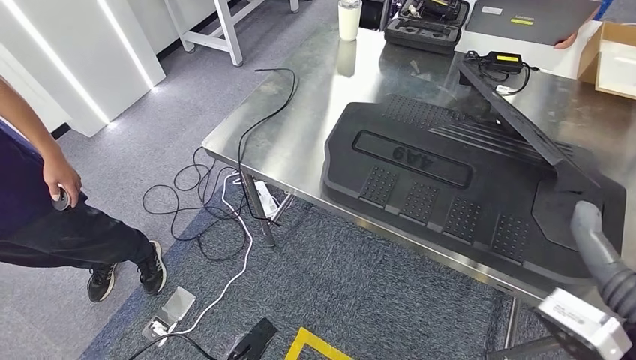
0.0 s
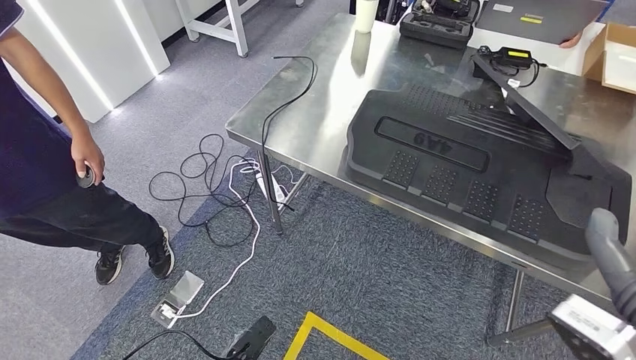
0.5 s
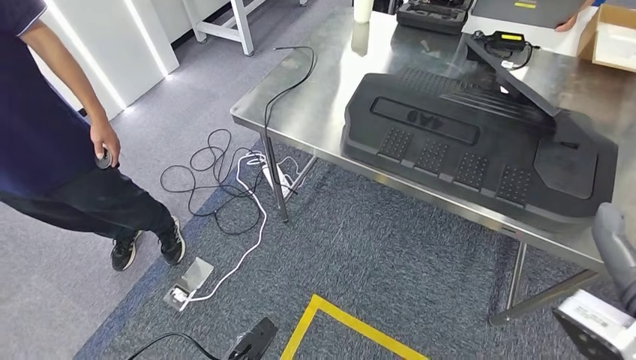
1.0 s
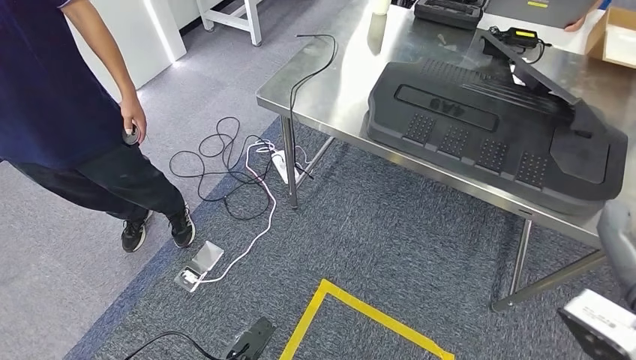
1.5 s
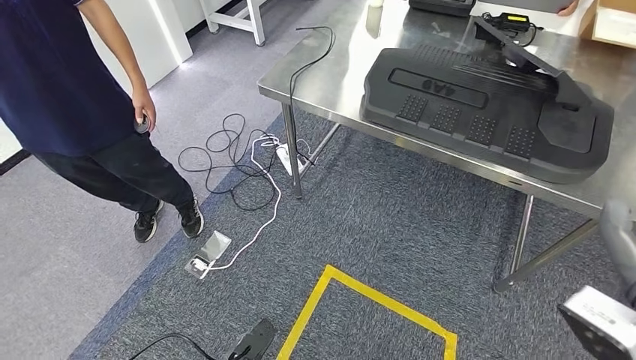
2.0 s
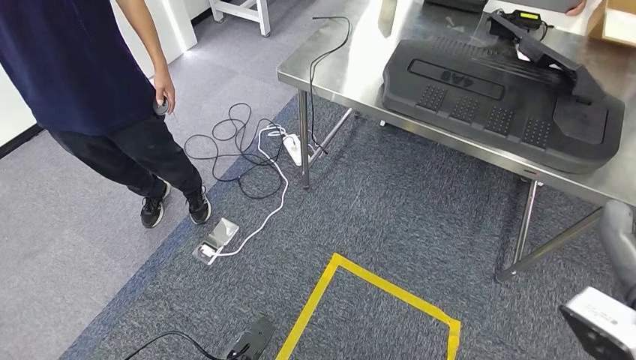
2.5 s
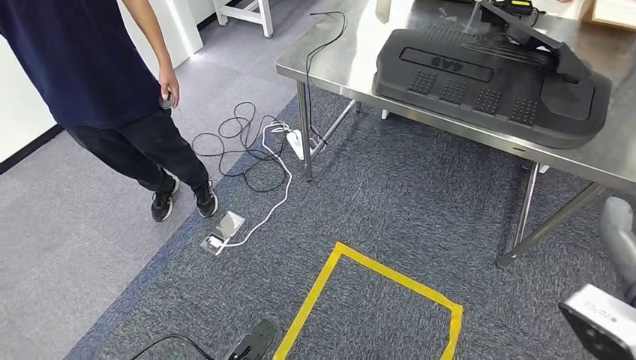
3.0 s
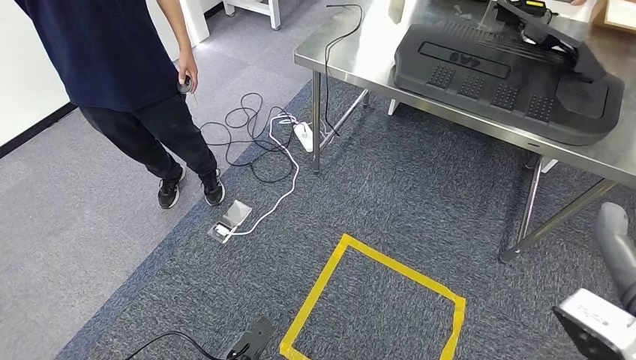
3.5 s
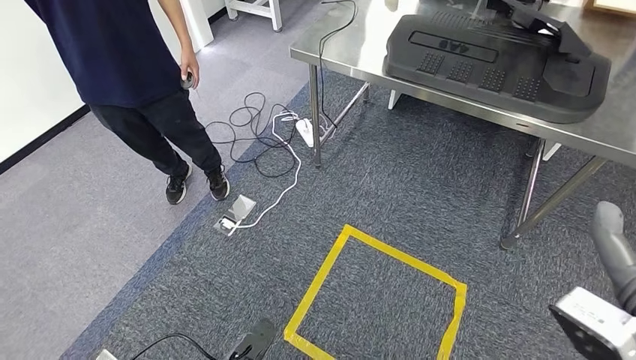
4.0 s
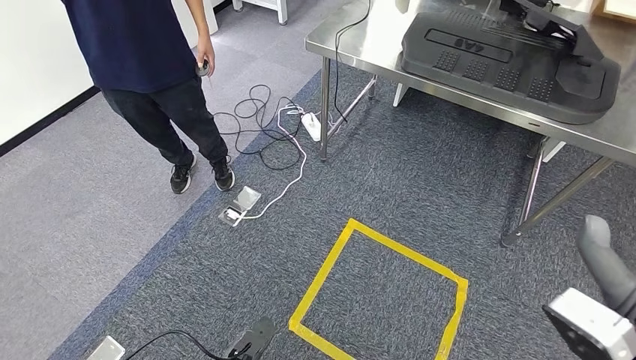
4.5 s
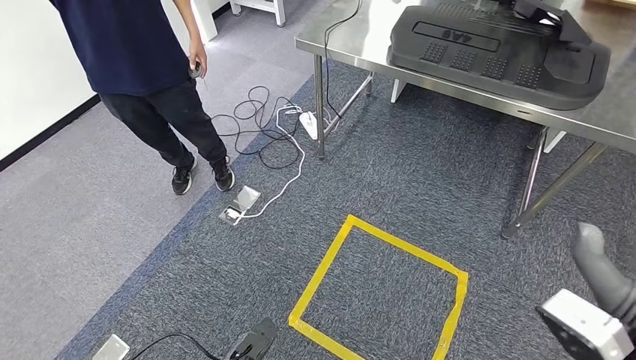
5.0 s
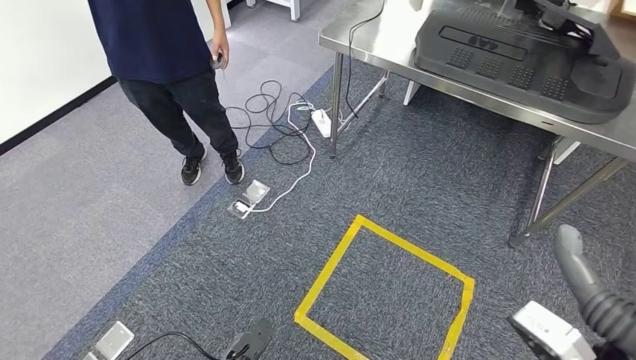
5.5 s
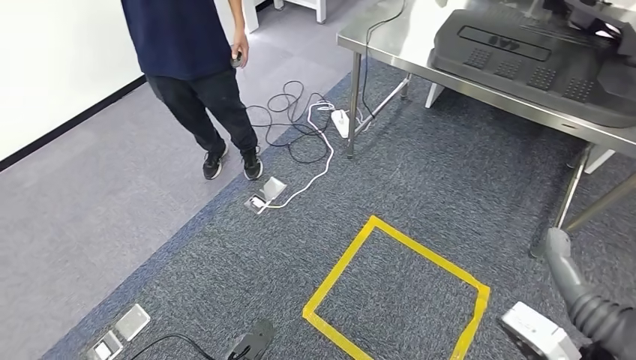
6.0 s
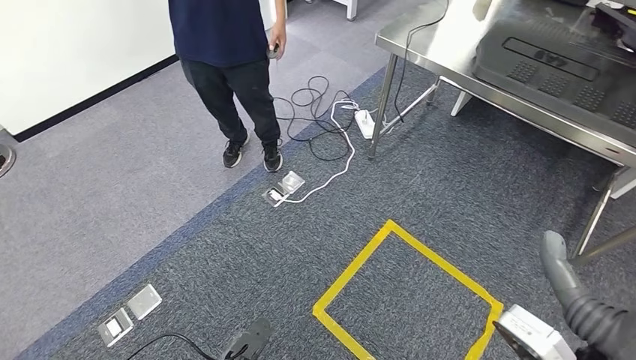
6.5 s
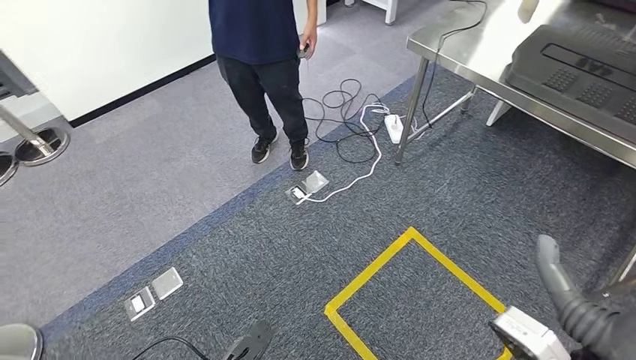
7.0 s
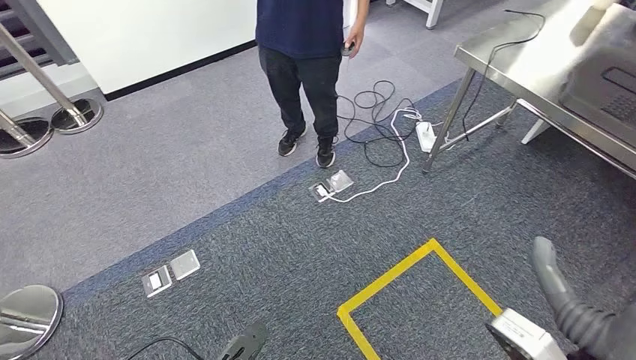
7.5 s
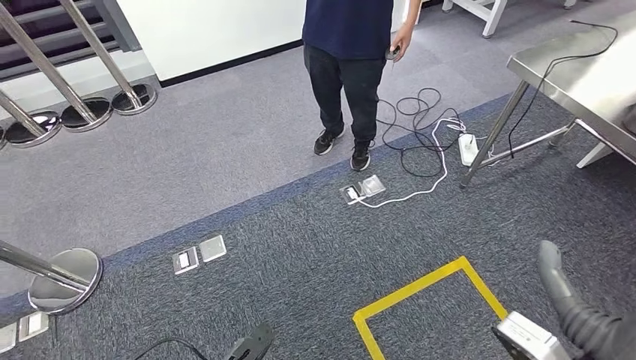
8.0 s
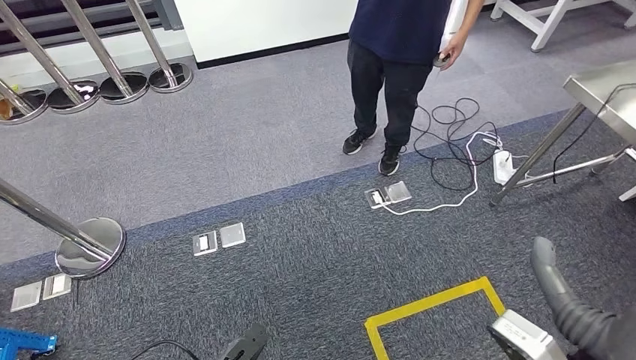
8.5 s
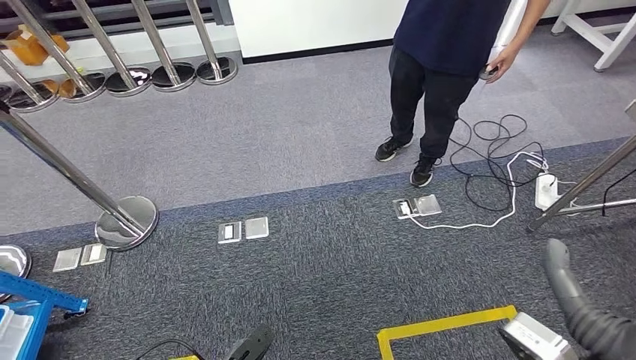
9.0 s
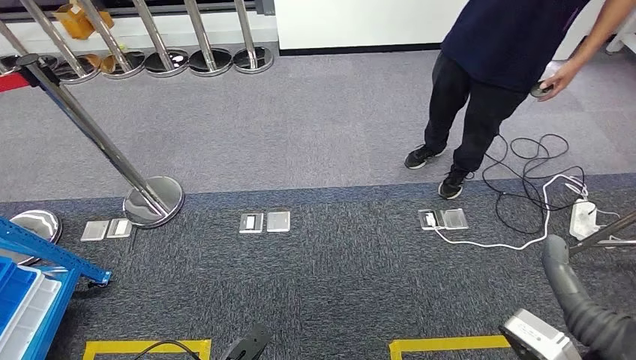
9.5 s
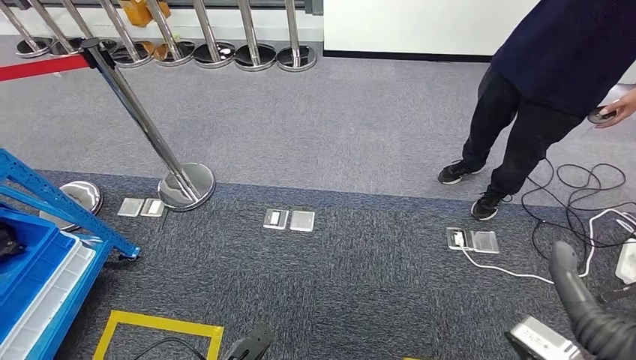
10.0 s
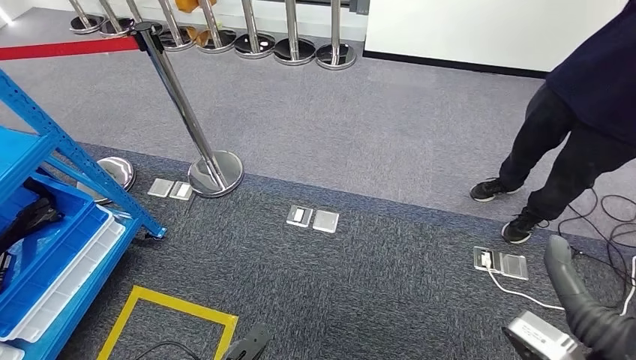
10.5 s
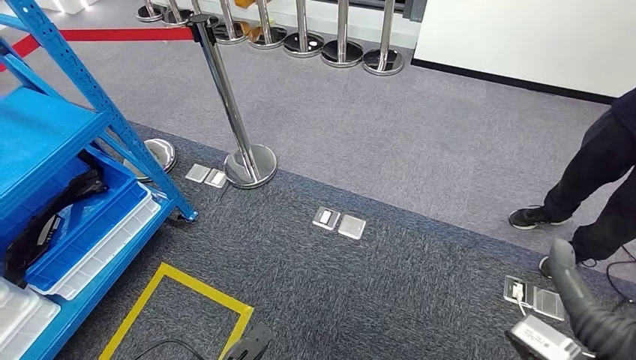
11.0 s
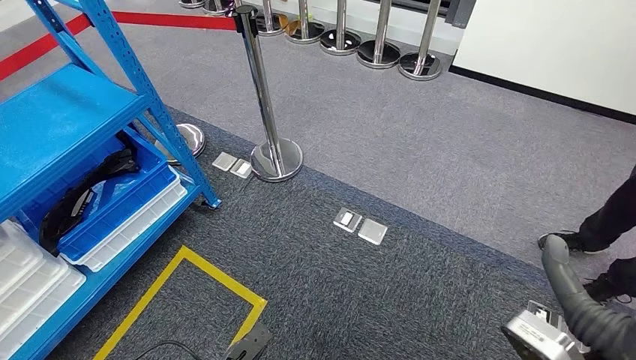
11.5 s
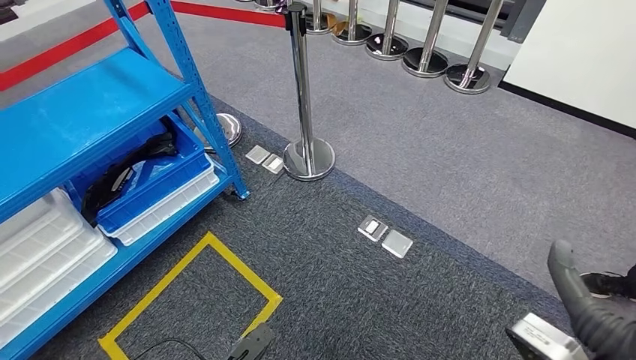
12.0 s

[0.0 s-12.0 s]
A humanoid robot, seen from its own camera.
Step, 0.0 to 4.0 s: Insert the large material into the corresponding slot on the workbench.

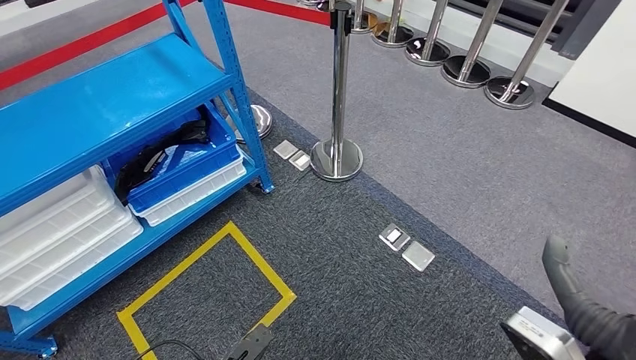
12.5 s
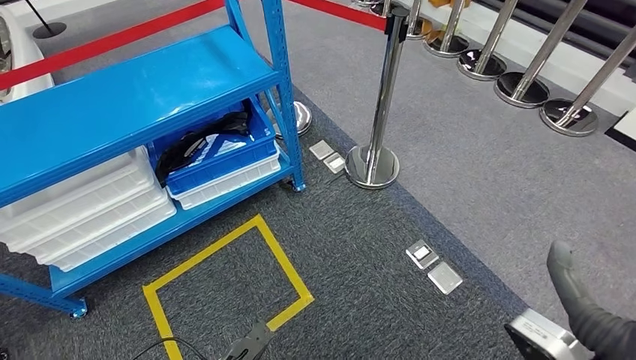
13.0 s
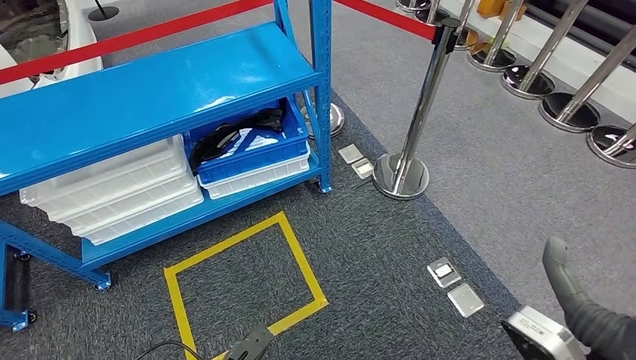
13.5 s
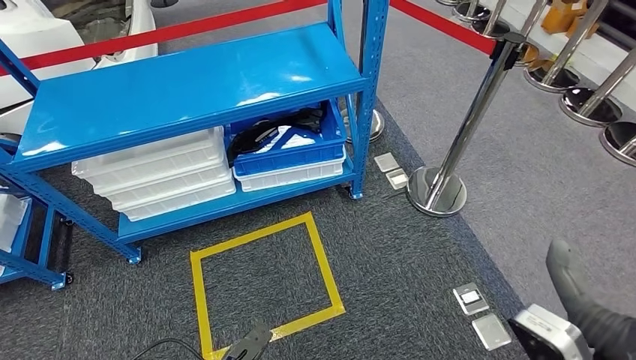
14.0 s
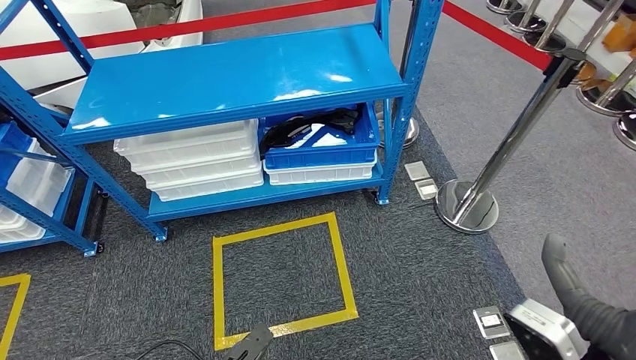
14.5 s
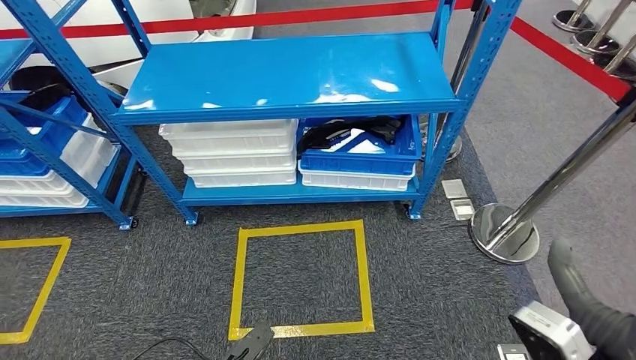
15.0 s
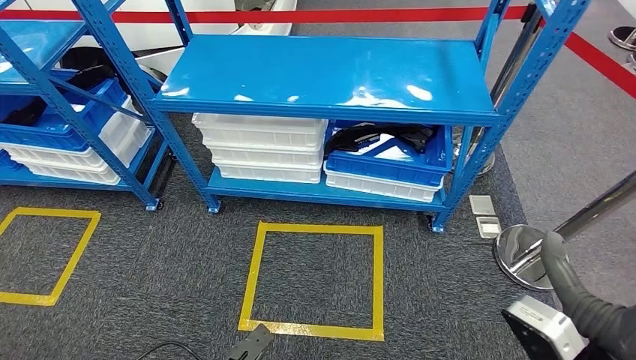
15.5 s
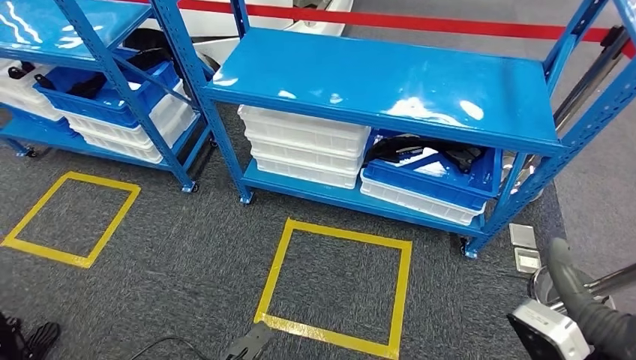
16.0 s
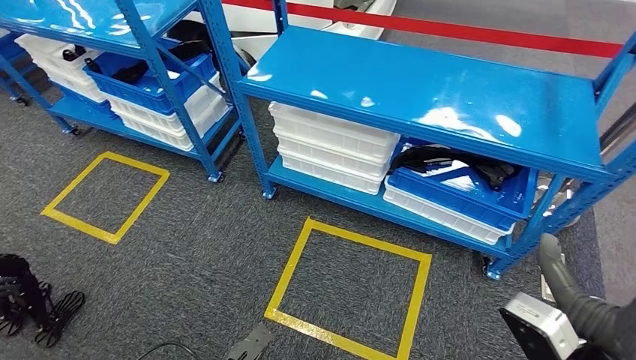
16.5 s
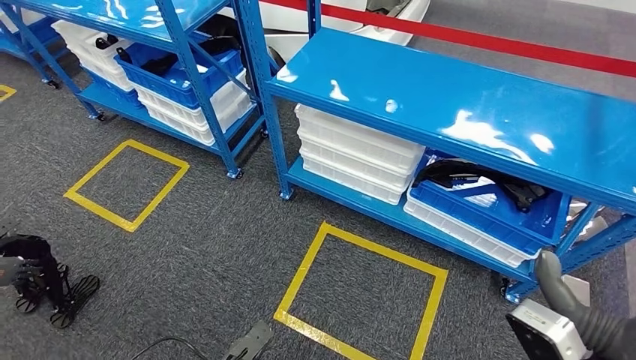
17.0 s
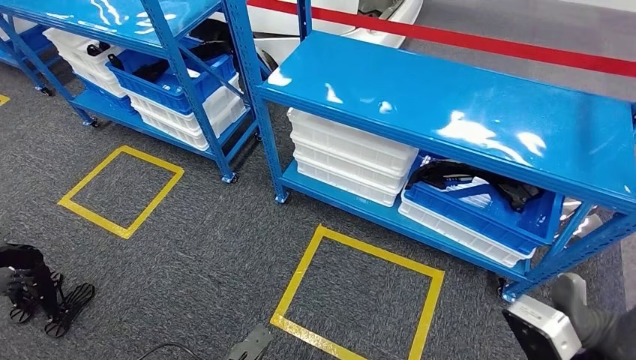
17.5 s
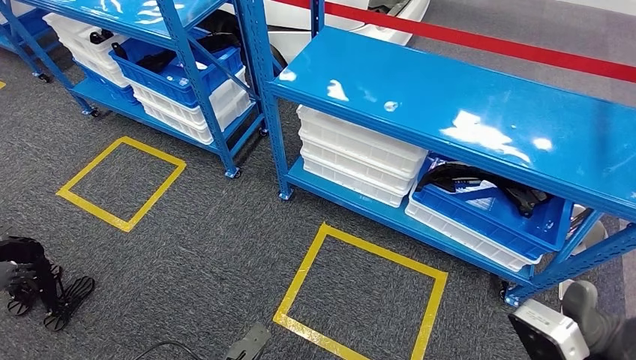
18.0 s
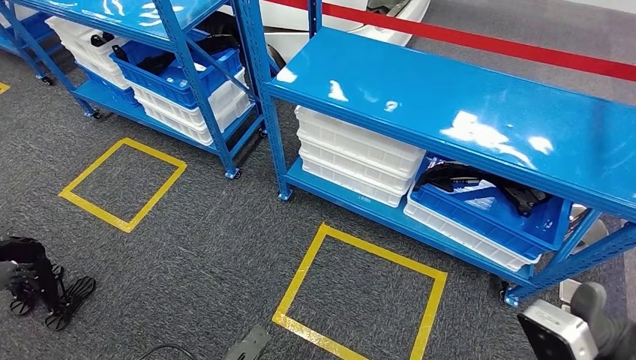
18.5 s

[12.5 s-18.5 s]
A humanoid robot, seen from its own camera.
Step, 12.5 to 18.5 s: Move to the initial position of the shelf.

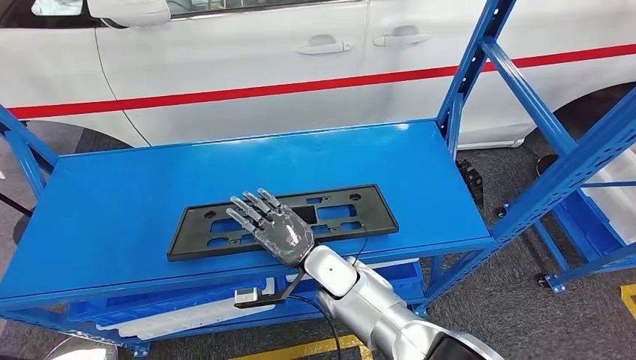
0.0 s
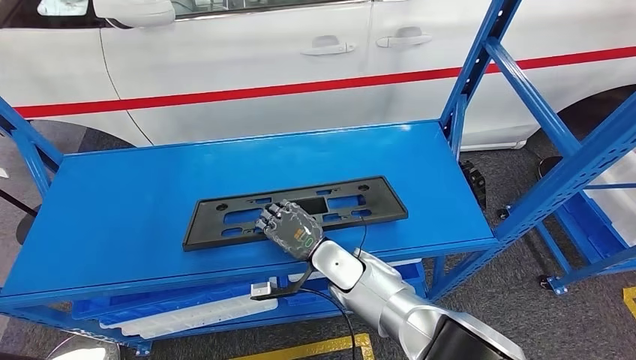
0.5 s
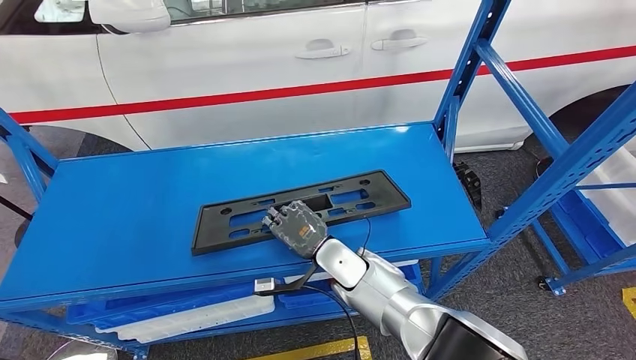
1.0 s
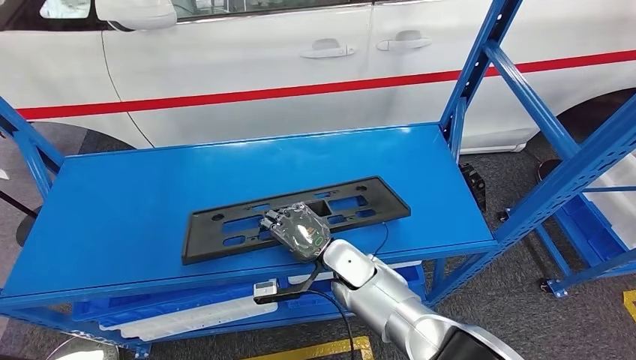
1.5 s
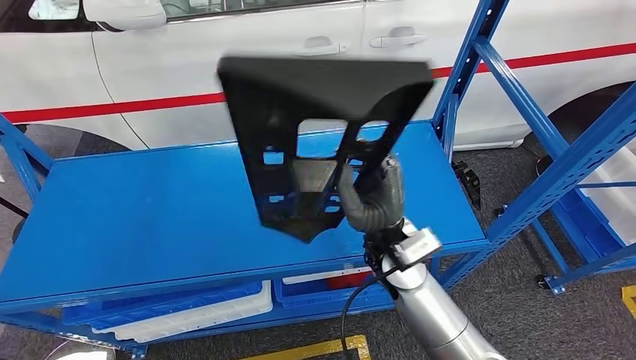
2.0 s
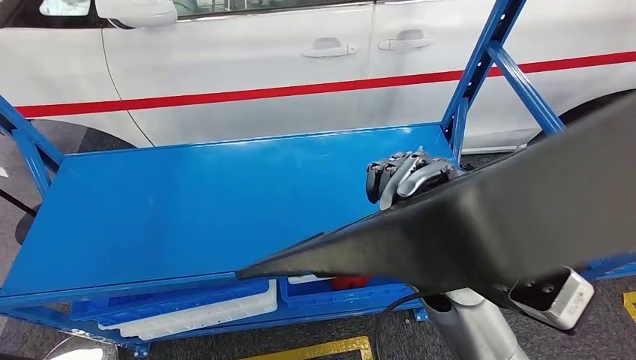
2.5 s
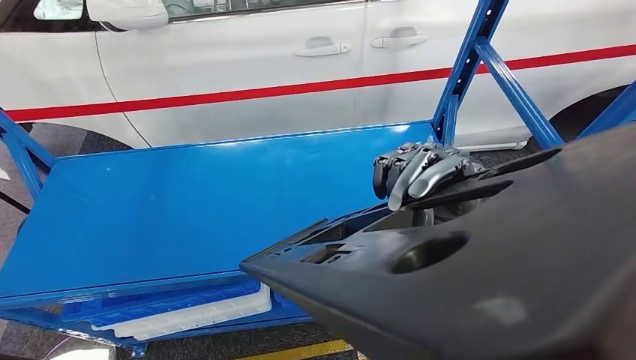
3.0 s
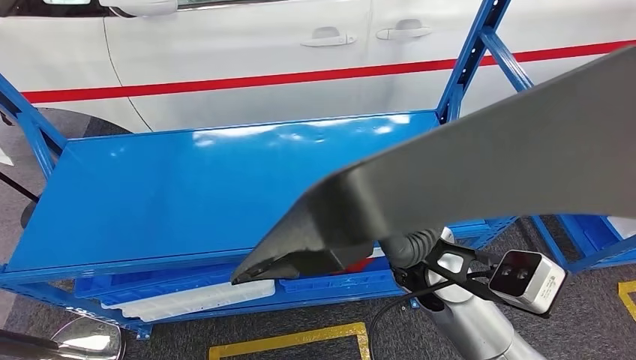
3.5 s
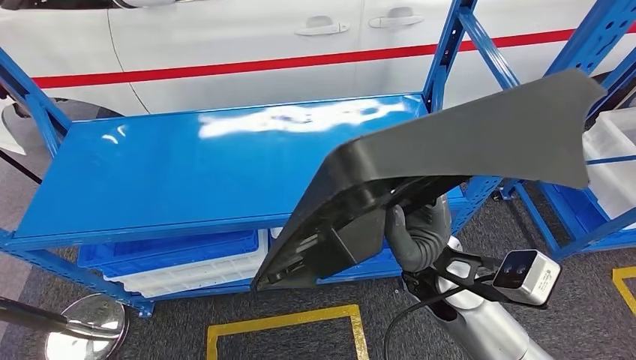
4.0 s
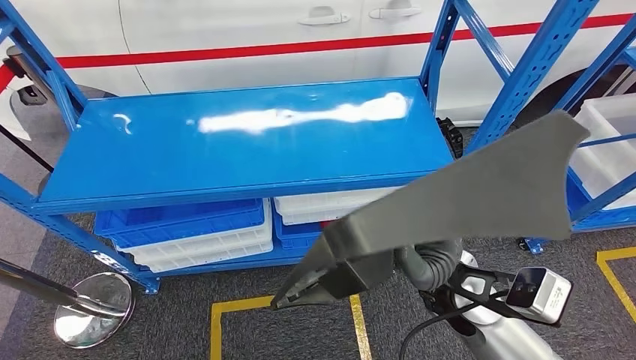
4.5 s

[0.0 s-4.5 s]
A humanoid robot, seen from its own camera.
Step, 0.0 to 2.0 s: Pick up the large material from the shelf.
